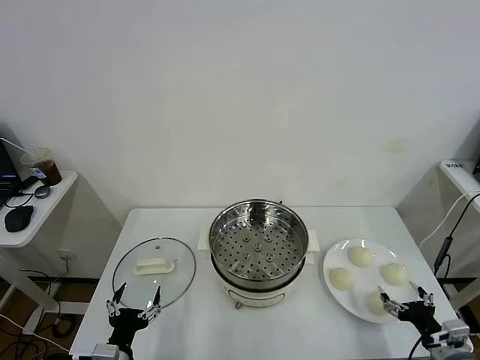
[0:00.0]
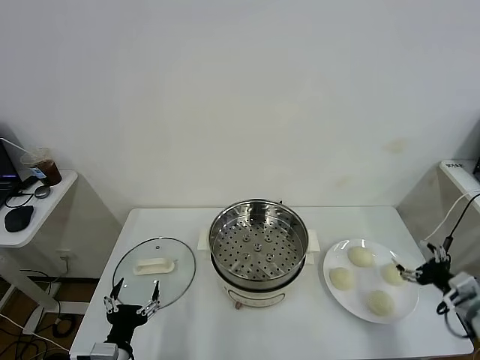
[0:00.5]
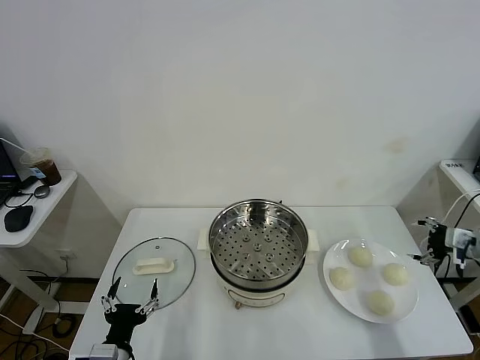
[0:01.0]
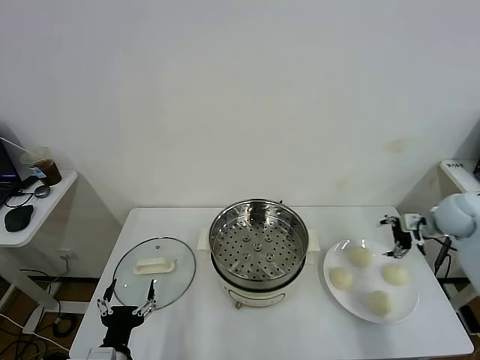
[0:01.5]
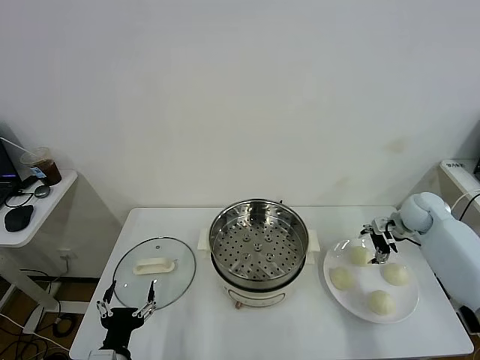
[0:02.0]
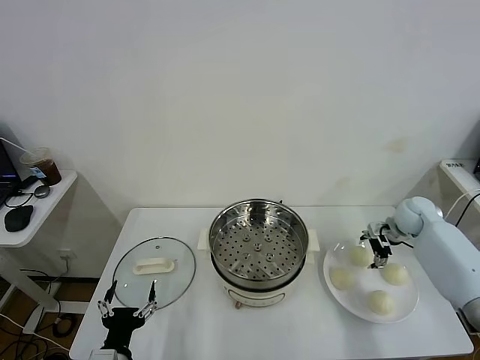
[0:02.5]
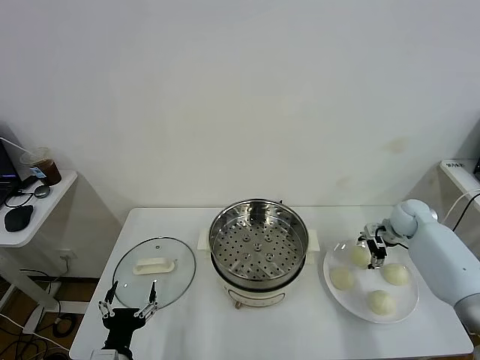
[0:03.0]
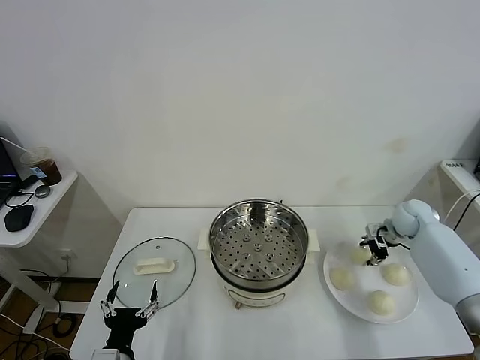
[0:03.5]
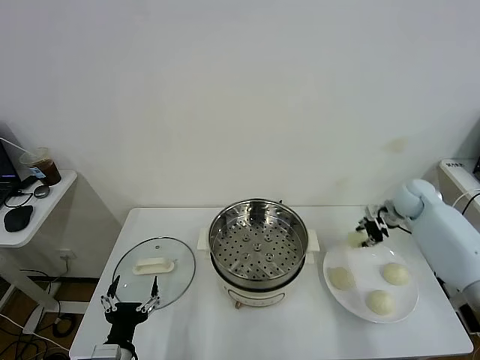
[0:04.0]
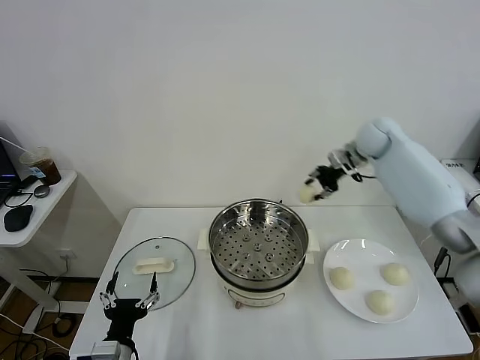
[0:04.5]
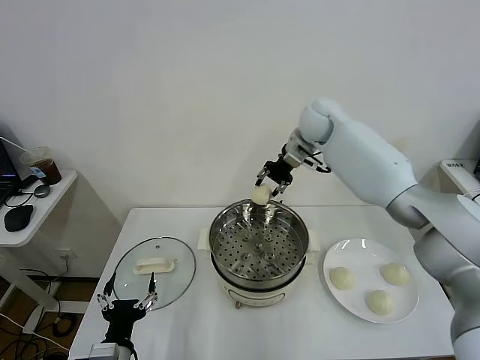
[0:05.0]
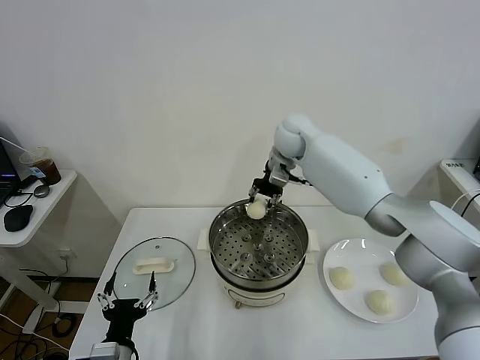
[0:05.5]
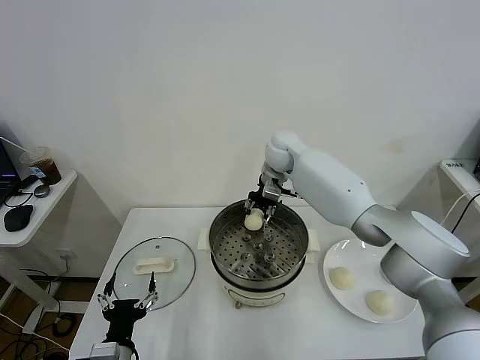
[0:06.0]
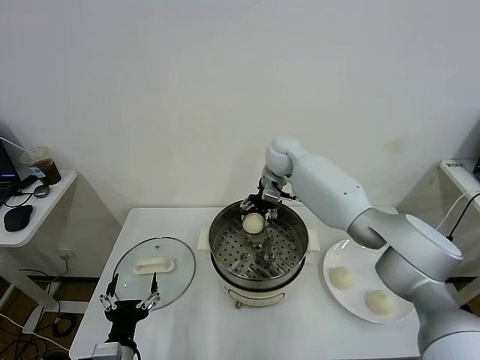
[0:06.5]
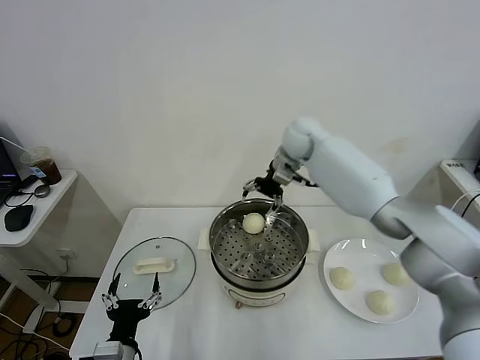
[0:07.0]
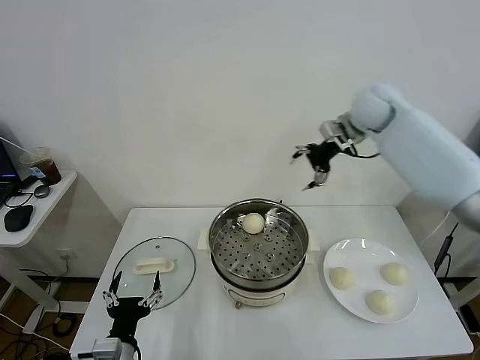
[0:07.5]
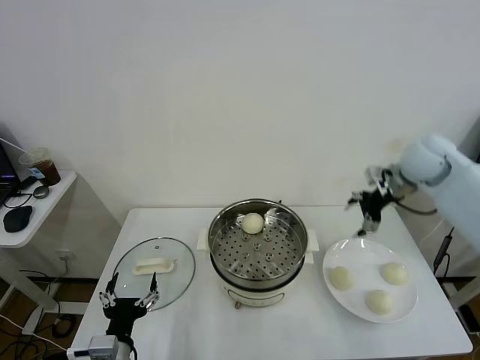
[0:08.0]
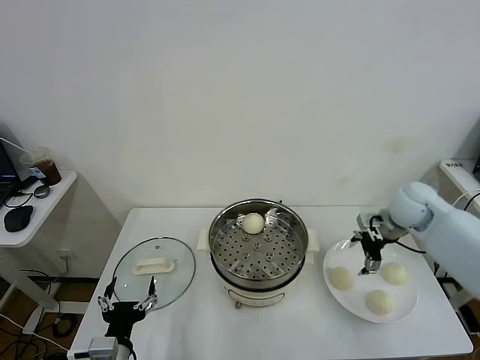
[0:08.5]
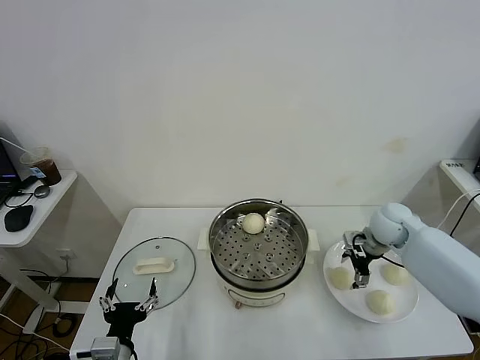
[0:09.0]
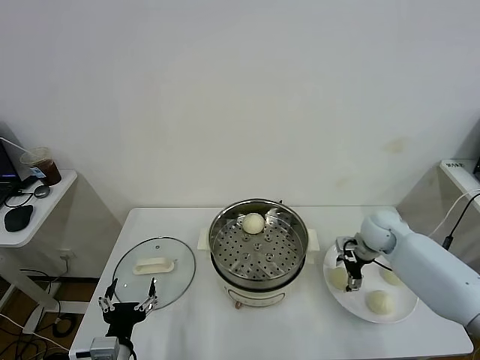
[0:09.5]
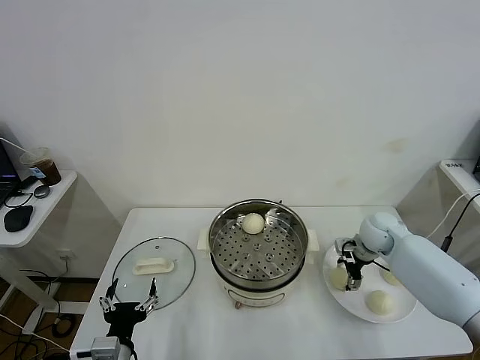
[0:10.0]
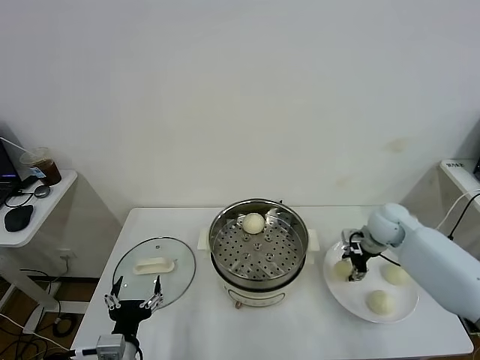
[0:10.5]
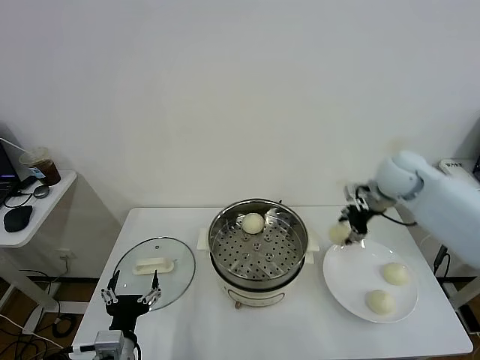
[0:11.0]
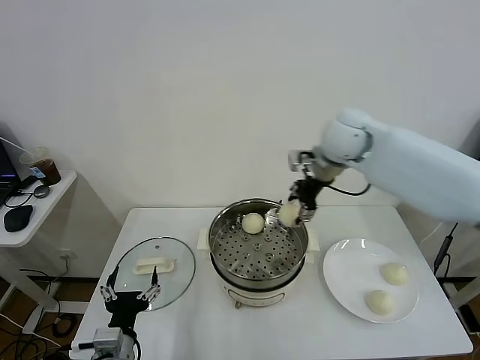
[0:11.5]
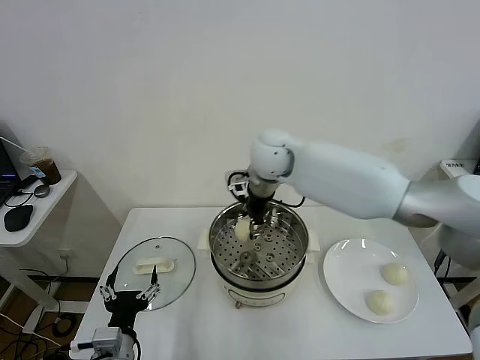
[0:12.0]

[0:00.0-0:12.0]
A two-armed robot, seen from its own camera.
Task of the whole recording: take steamed baozi put them in steamer.
Step, 0:00.0 to 0:03.5: Grasp the baozi in the plate with right gripper.
Step, 0:04.0 to 0:06.5: Place the baozi on the steamer with right gripper.
Step, 0:07.0 to 0:10.0: Grasp the baozi in the plate with right gripper.
0:02.0 to 0:04.0: The right gripper heads upward, covering roughly 5 cm, and closes its fingers.
0:04.0 to 0:06.0: The right gripper moves to the left, approximately 30 cm.
0:06.0 to 0:08.0: The right gripper goes about 30 cm to the right and backward, and opens.
0:08.0 to 0:10.0: The right gripper travels downward by some 20 cm, and closes up.
0:10.0 to 0:12.0: The right gripper shifts about 35 cm to the left and upward.

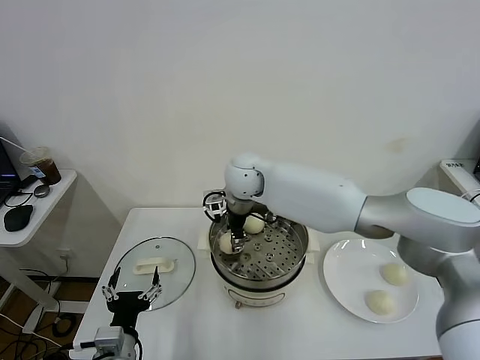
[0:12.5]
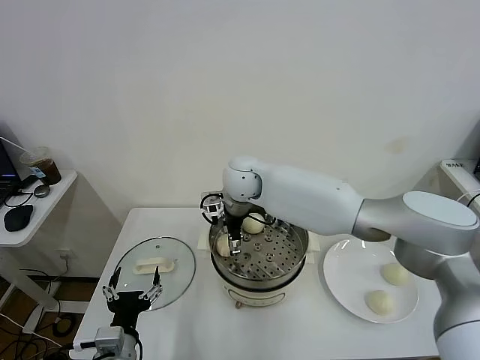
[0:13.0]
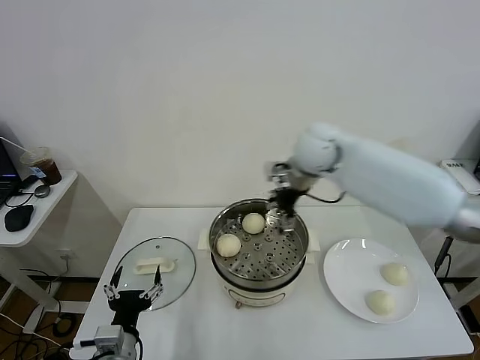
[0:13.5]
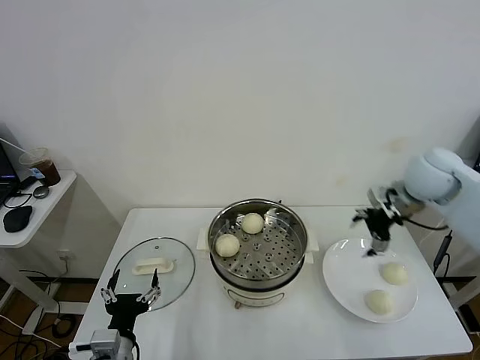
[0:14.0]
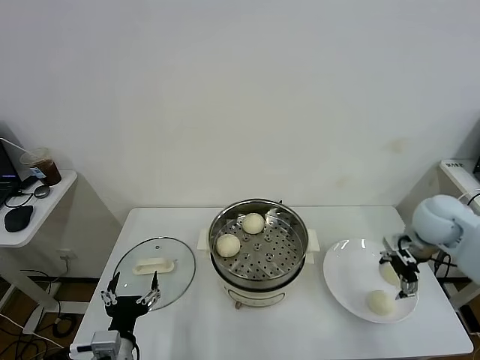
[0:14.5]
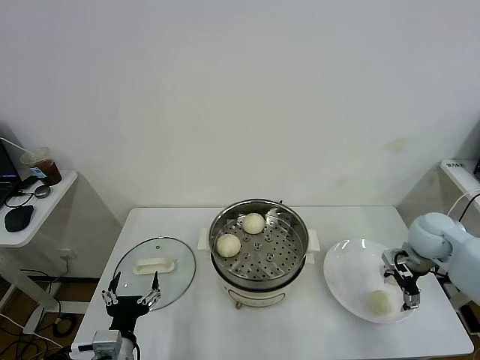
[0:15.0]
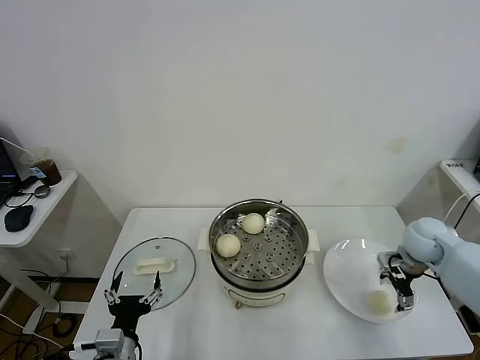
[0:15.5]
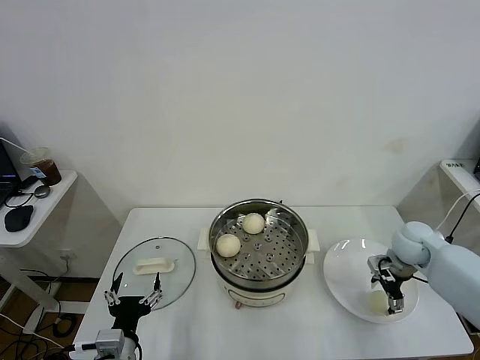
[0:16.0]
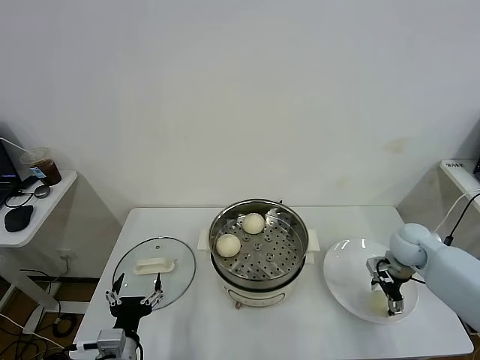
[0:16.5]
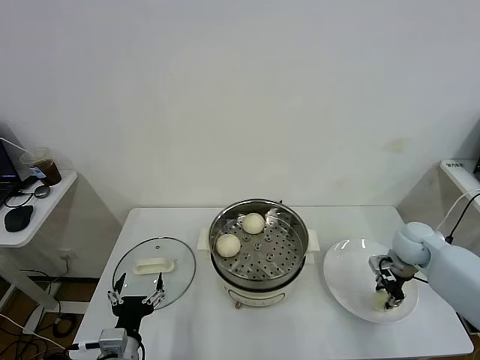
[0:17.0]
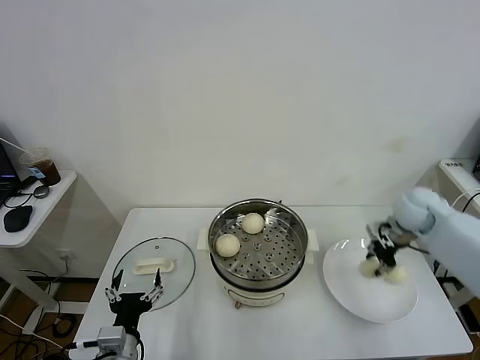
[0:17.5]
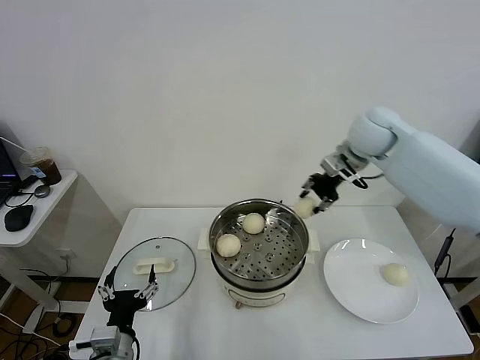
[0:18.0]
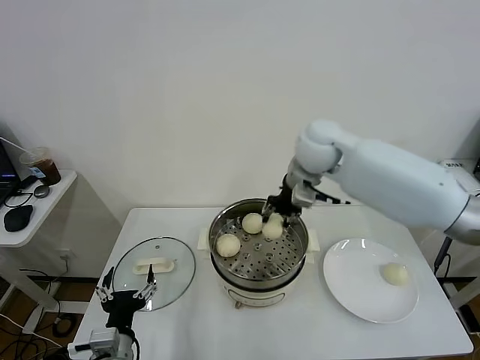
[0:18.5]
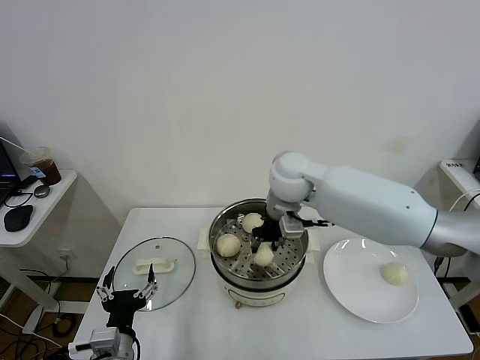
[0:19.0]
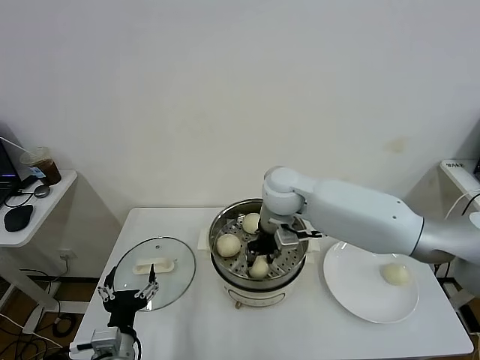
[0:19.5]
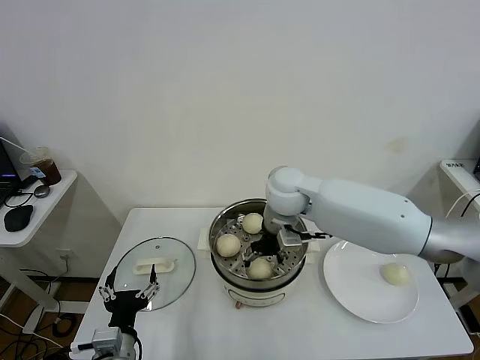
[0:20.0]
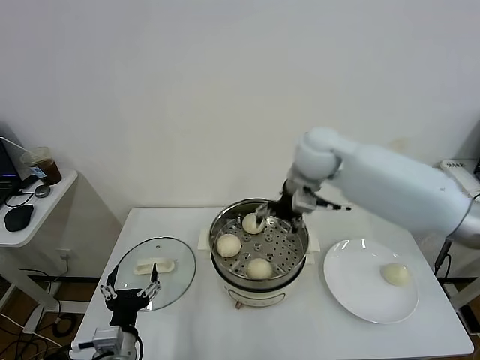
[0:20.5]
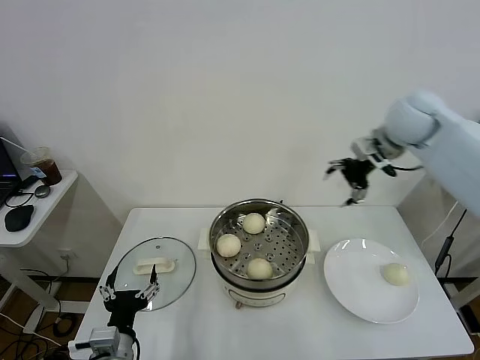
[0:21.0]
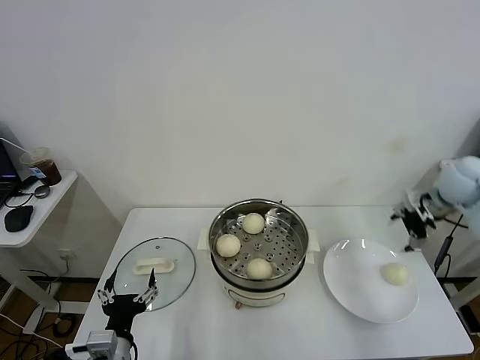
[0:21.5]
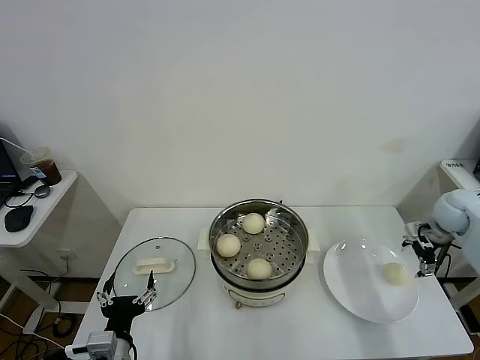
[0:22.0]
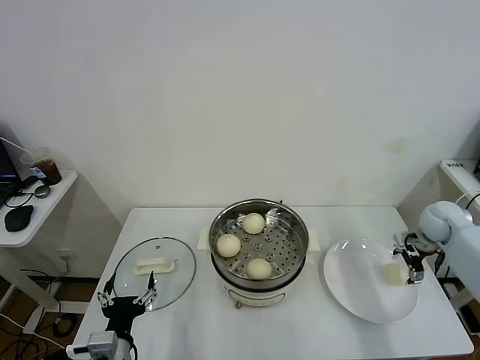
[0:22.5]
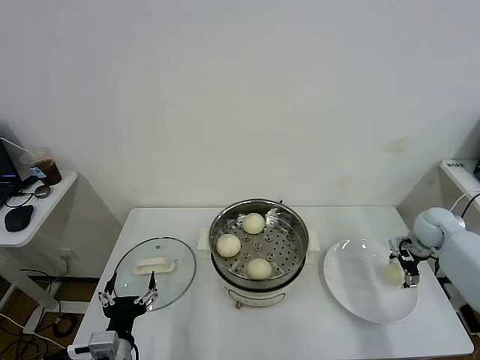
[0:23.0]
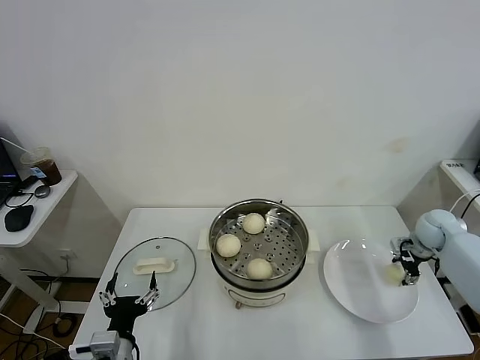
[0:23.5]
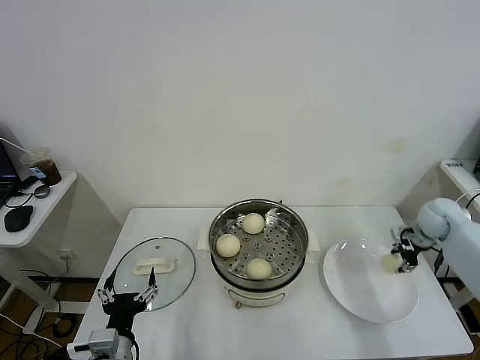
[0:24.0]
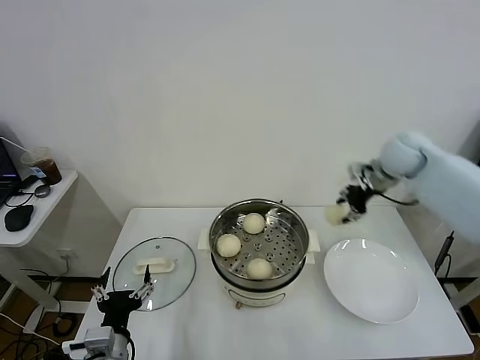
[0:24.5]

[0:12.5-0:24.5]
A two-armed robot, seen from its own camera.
Task of the whole recording: take steamed baozi put them in steamer.
Step, 0:13.5 to 0:16.5: Grasp the baozi in the plate with right gripper.
Step, 0:17.5 to 0:20.0: Place the baozi on the steamer with right gripper.
Step, 0:20.5 to 0:23.5: Grasp the baozi in the plate with right gripper.
0:12.5 to 0:14.5: The right gripper is displaced to the right by some 40 cm, and opens up.
0:14.5 to 0:16.5: The right gripper goes approximately 10 cm downward.
0:16.5 to 0:18.5: The right gripper goes some 35 cm to the left and upward, and closes.
0:18.5 to 0:20.5: The right gripper moves about 10 cm downward and comes back, and opens its fingers.
0:20.5 to 0:22.5: The right gripper goes roughly 40 cm to the right and downward.
0:22.5 to 0:24.5: The right gripper moves upward and to the left, approximately 25 cm, and closes its fingers.

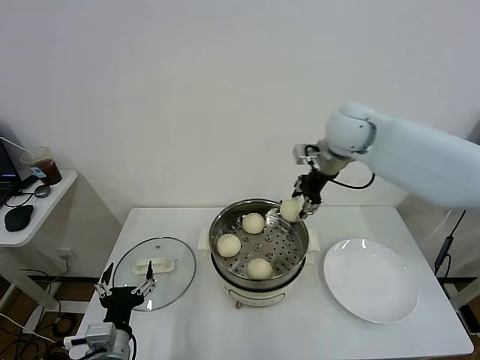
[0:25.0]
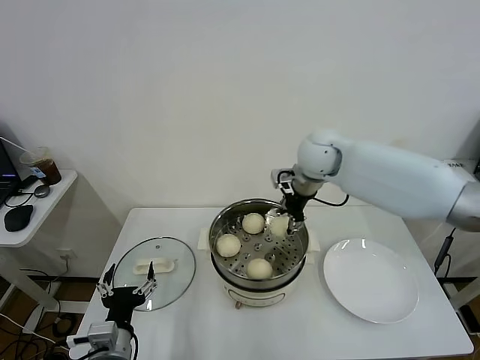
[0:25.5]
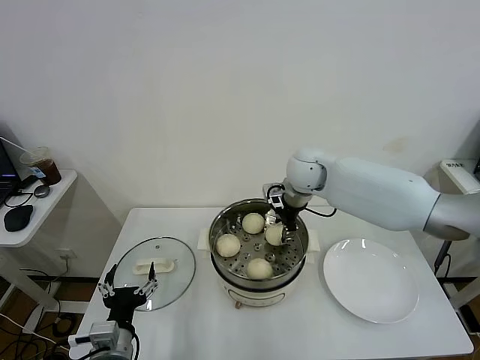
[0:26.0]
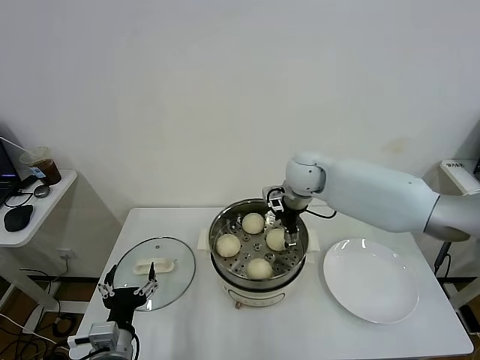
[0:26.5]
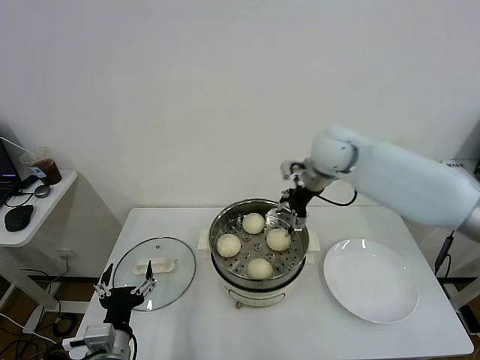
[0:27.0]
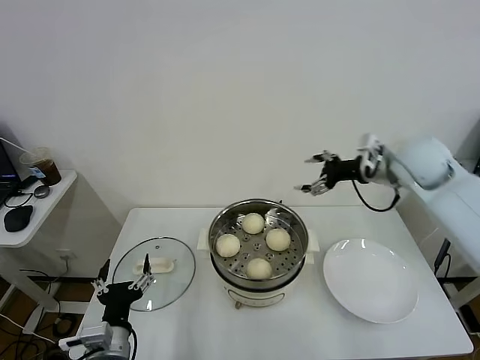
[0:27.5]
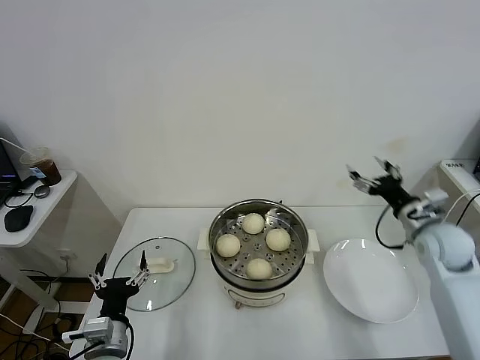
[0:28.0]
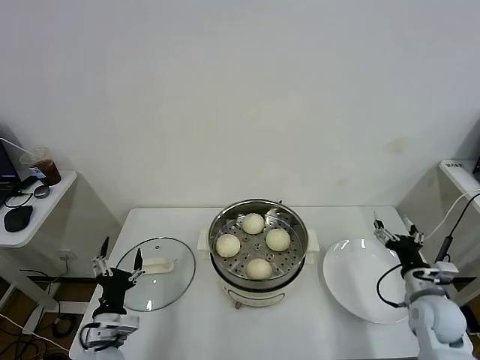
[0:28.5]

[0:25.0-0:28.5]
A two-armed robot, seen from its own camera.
Task of the whole recording: take steamed baozi put them in steamer.
Step, 0:25.0 to 0:26.5: Place the baozi on the steamer with right gripper.
0:25.0 to 0:27.0: The right gripper opens its fingers.
0:27.0 to 0:28.5: The right gripper travels downward, backward and to the right by roughly 40 cm; the left gripper heads downward, covering some 5 cm.
